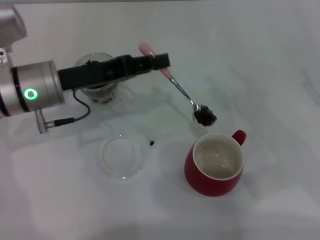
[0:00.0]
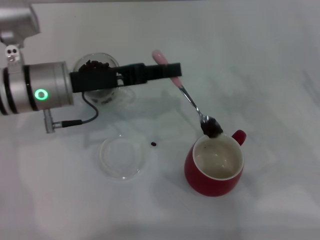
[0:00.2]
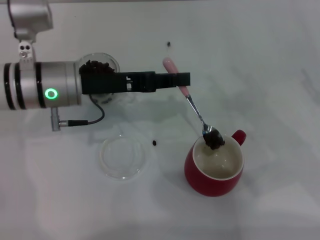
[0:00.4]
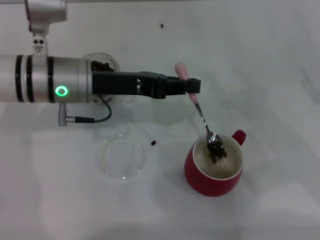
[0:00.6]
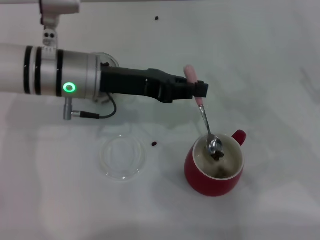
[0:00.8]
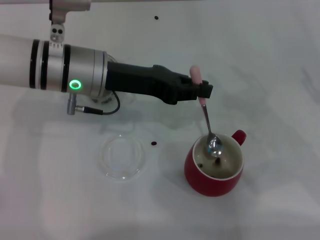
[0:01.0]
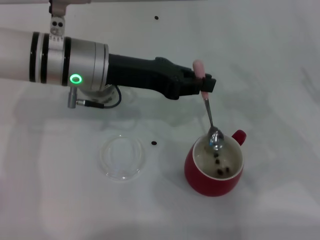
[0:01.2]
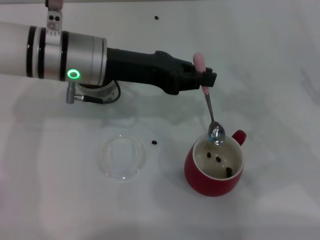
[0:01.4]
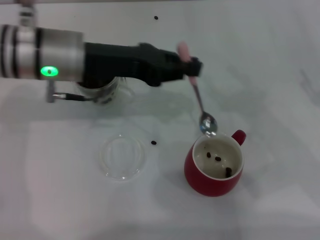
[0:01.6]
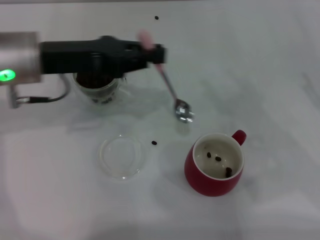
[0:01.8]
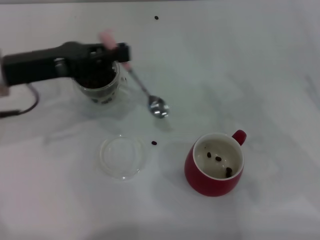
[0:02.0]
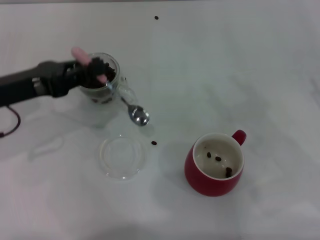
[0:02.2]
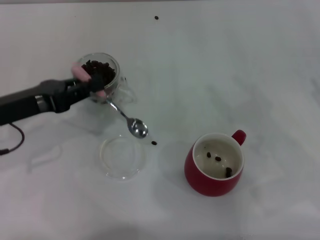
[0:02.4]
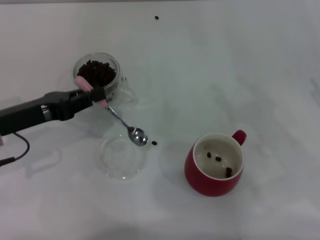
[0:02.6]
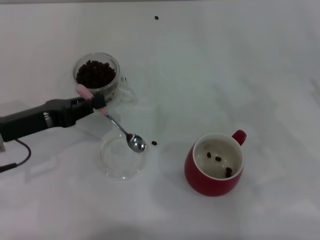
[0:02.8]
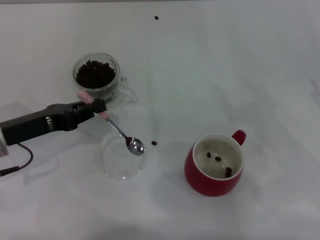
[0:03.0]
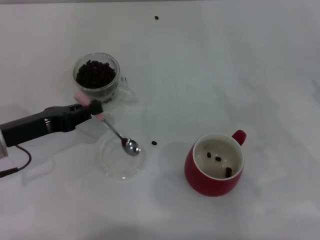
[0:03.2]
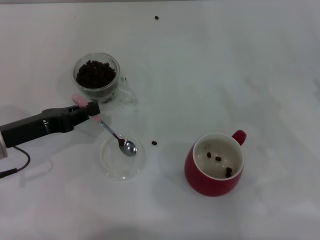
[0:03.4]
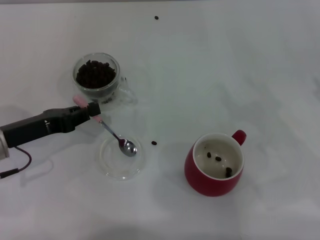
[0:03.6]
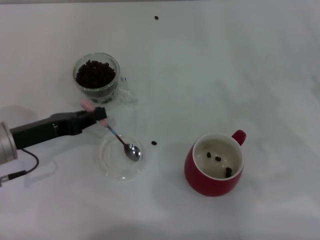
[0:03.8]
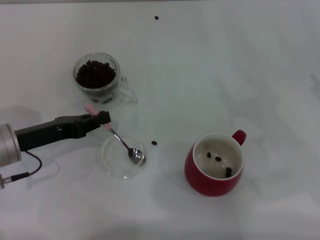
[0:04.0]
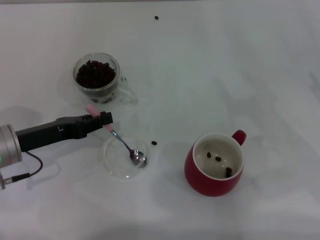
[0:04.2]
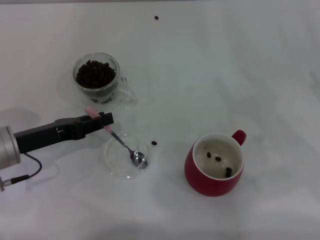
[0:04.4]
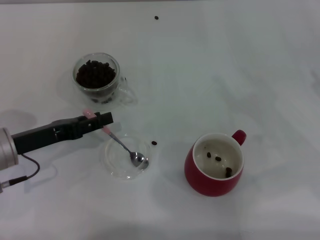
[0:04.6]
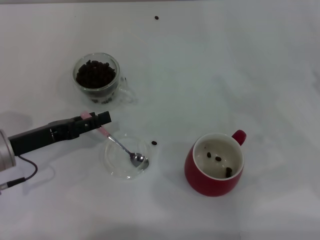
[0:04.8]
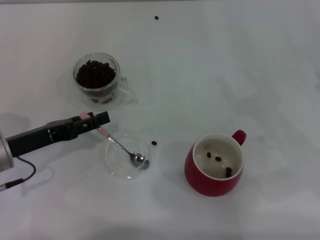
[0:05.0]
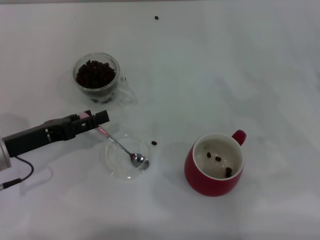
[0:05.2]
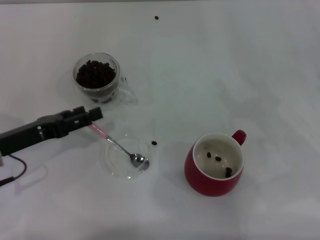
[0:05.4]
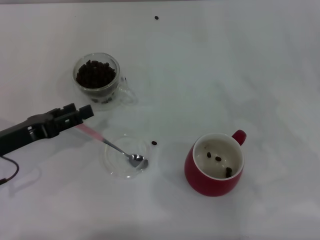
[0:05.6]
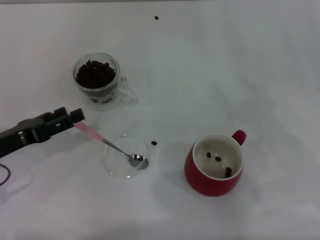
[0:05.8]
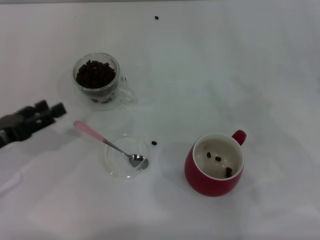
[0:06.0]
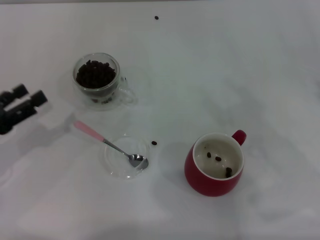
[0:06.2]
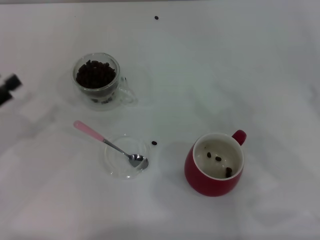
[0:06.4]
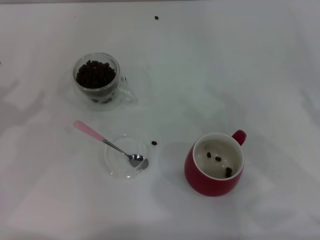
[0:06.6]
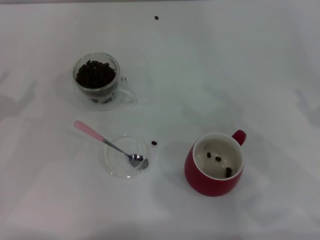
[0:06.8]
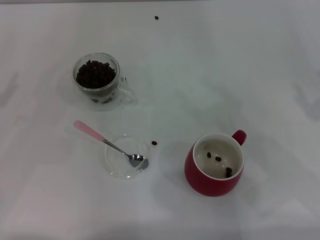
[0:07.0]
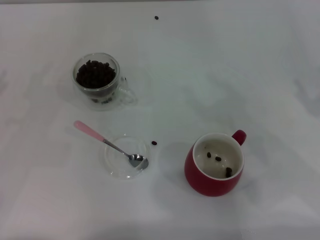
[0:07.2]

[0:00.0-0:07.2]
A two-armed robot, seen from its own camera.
Task of the whole recording: Use a pink spoon to take out the coffee beans from the glass and pour them into the red cup.
Step, 0:01.6 to 0:05.8: Place the spoon back in its original place with the right gripper.
0:00.0 to 0:01.4: The left gripper heads to the right, covering about 5 cm.
0:01.4 to 0:02.8: The left gripper goes roughly 20 cm to the left, backward and downward.
0:02.8 to 0:04.4: The grippers stay close to where they were, moving slightly.
0:04.4 to 0:05.8: The left gripper opens up.
0:05.8 to 0:07.2: The left gripper moves to the left, roughly 10 cm.
